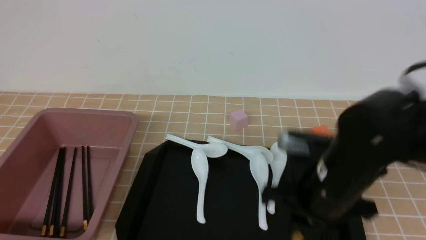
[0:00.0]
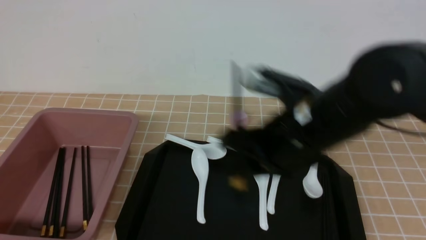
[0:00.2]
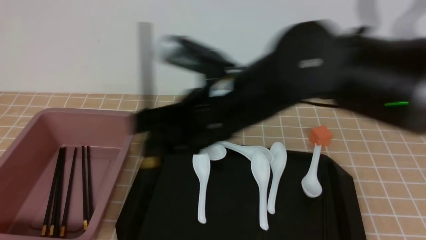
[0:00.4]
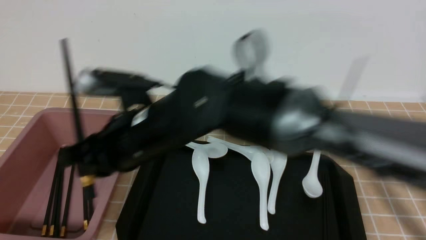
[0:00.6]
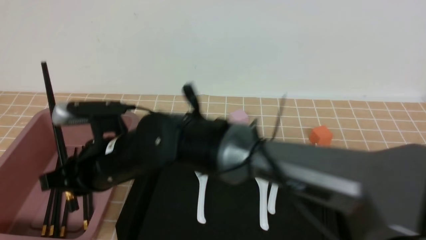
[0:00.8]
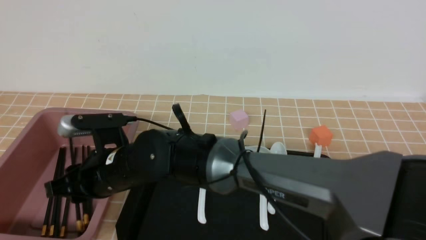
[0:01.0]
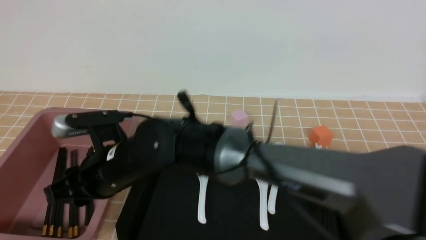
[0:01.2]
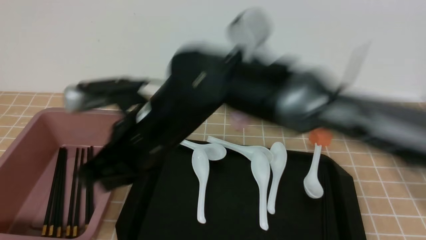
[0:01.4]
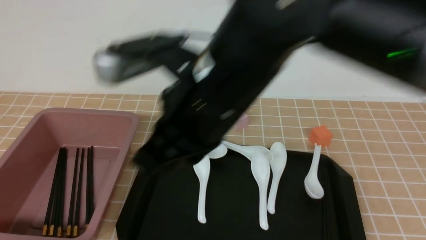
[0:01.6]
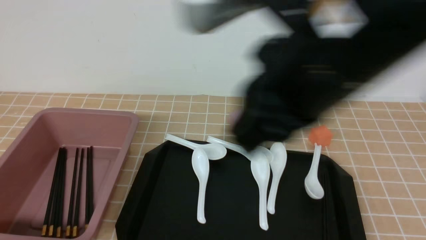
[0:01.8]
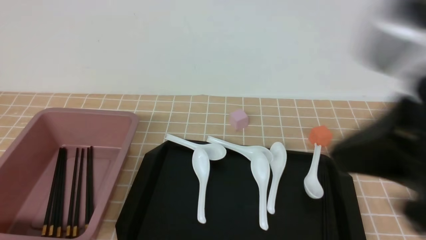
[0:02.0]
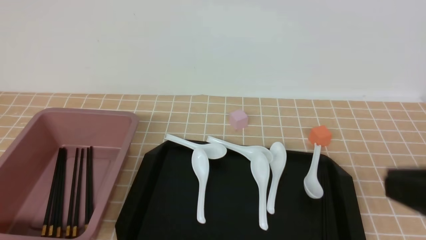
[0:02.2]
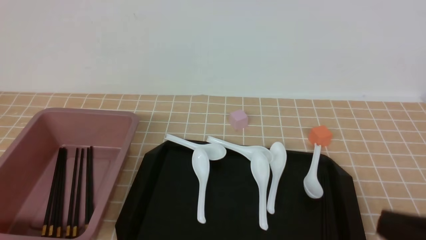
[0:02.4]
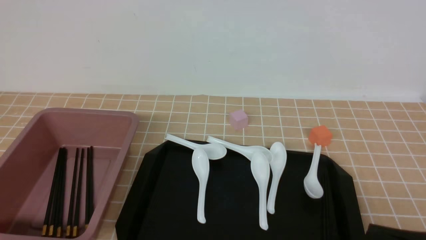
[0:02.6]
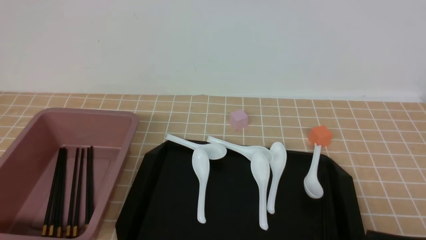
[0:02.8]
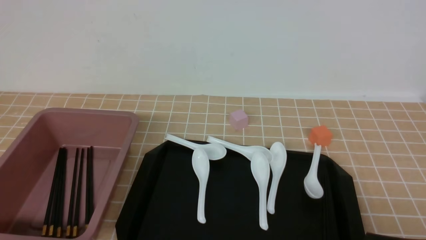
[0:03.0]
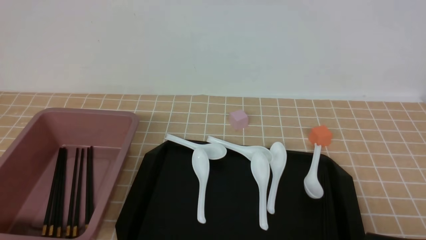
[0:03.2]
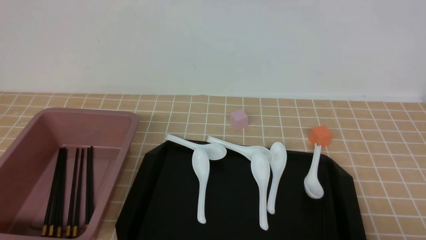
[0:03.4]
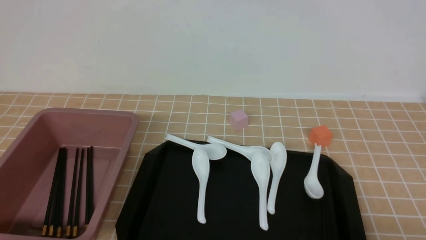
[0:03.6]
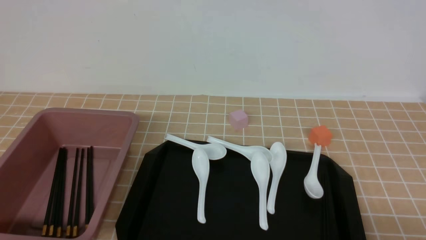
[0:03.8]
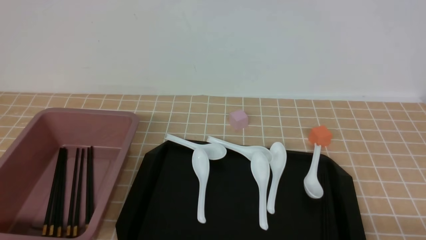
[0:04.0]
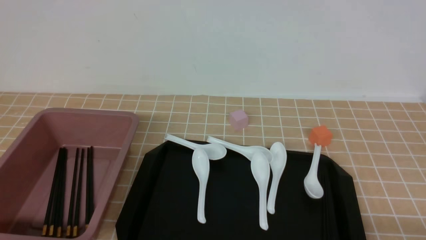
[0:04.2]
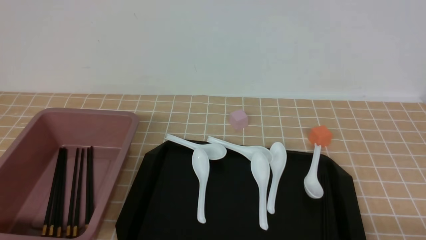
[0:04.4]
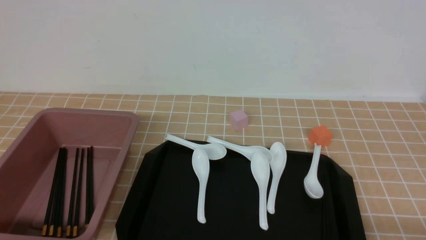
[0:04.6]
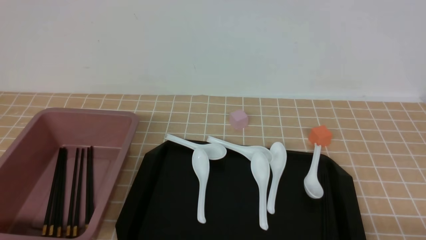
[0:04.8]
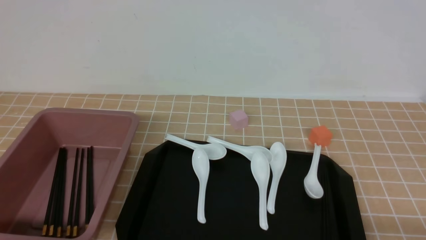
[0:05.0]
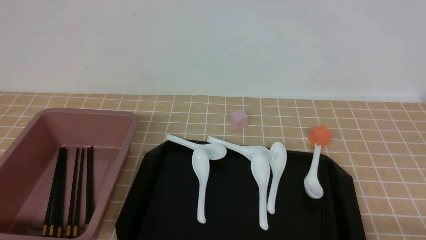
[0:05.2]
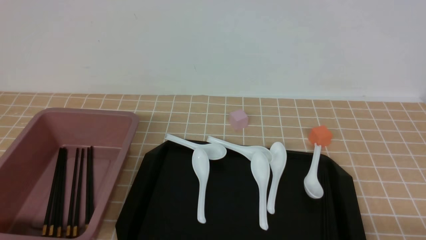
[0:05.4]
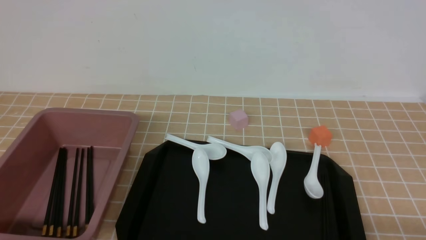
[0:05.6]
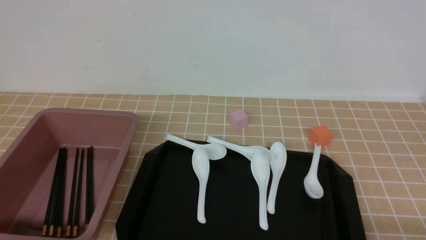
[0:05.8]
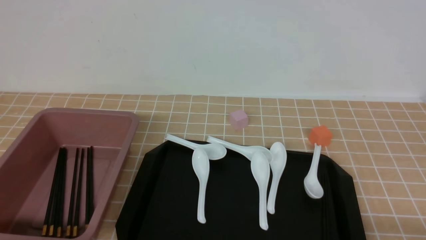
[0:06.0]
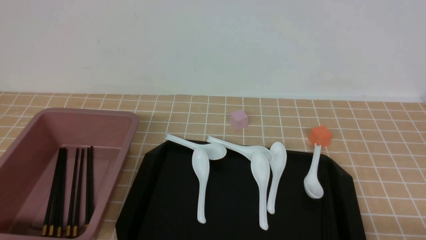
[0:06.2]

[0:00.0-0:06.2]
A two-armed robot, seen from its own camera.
Step, 0:00.0 to 0:01.4: use the right arm to put the chopsticks into the lunch box.
0:00.0 to 0:01.6: The right gripper heads upward and to the left, covering approximately 15 cm.
0:01.6 to 0:03.2: The right gripper is displaced to the right, backward and downward by some 30 cm.
0:04.6 to 0:06.2: Both grippers stay put.
